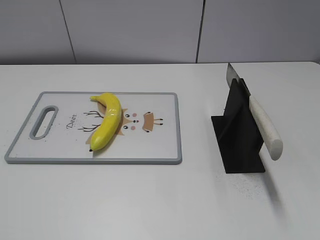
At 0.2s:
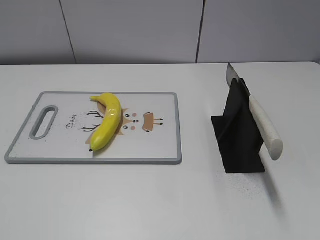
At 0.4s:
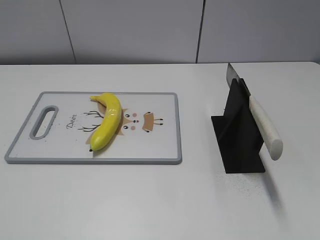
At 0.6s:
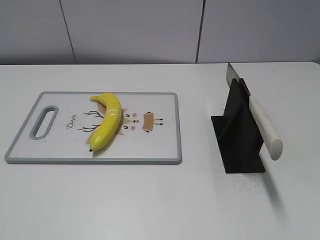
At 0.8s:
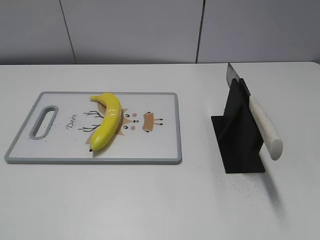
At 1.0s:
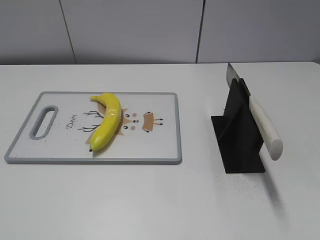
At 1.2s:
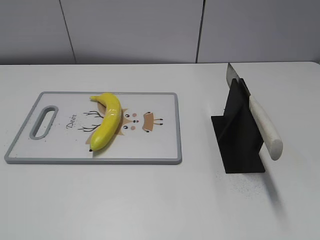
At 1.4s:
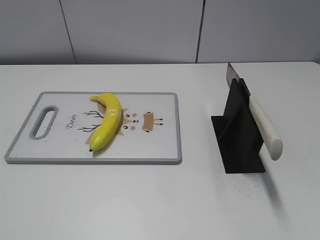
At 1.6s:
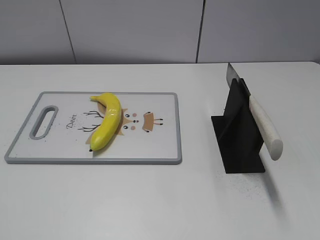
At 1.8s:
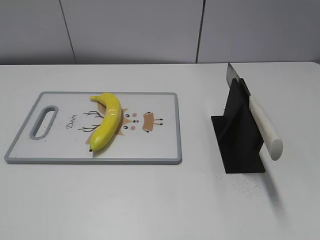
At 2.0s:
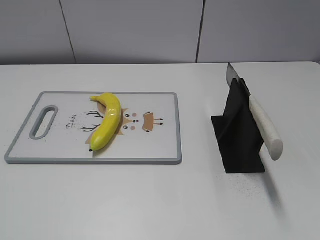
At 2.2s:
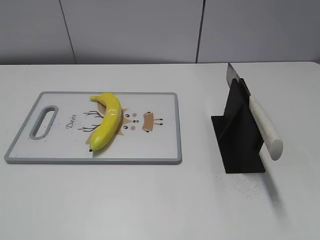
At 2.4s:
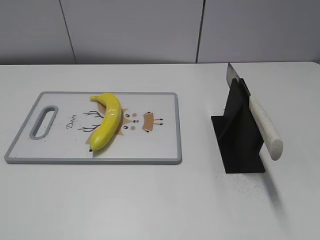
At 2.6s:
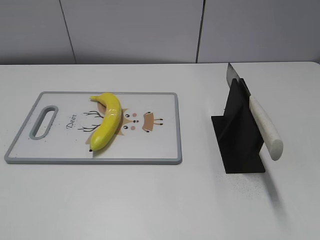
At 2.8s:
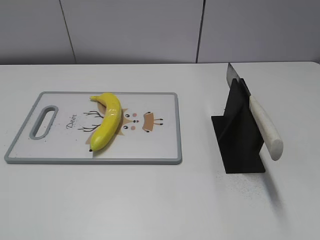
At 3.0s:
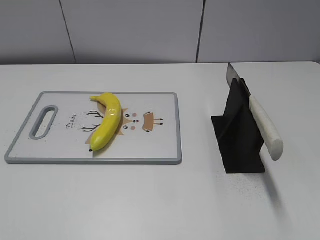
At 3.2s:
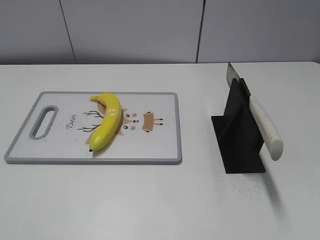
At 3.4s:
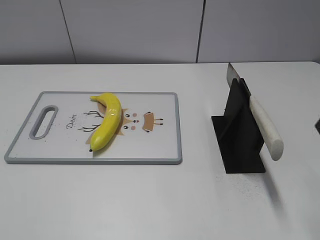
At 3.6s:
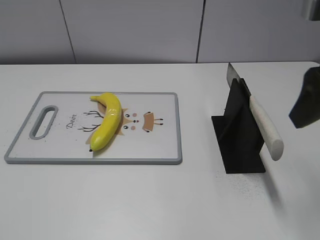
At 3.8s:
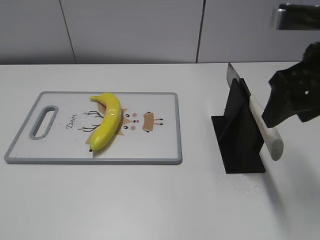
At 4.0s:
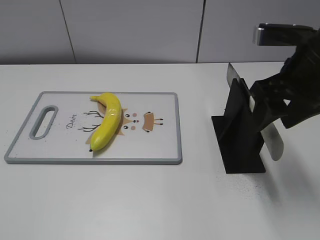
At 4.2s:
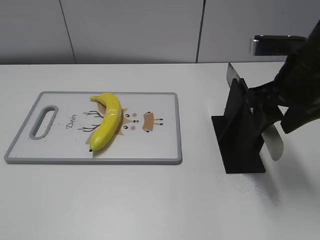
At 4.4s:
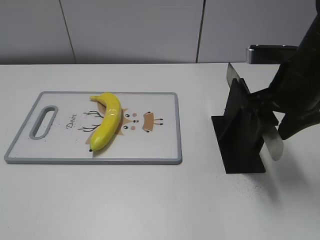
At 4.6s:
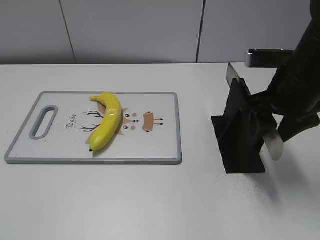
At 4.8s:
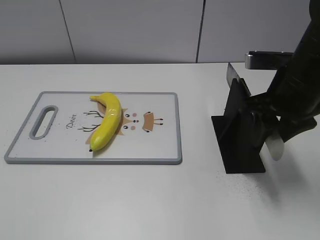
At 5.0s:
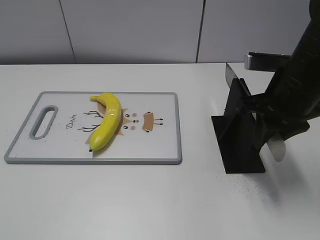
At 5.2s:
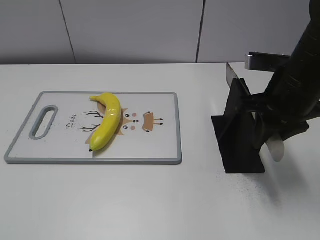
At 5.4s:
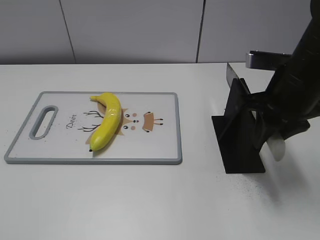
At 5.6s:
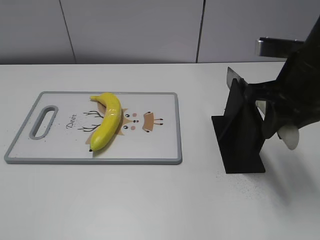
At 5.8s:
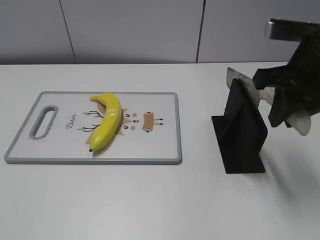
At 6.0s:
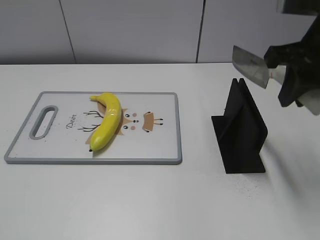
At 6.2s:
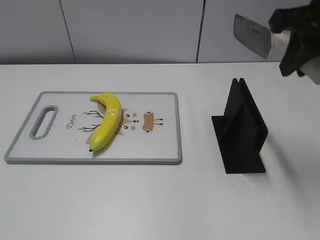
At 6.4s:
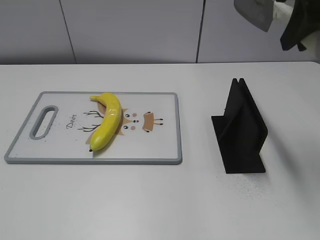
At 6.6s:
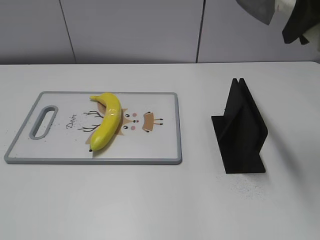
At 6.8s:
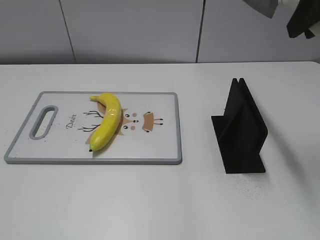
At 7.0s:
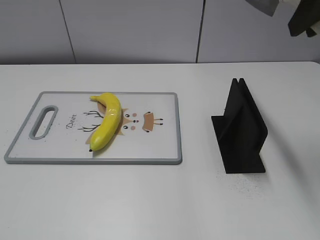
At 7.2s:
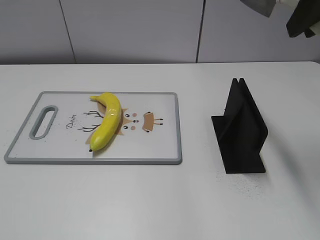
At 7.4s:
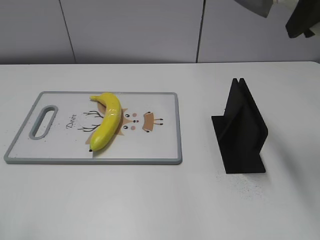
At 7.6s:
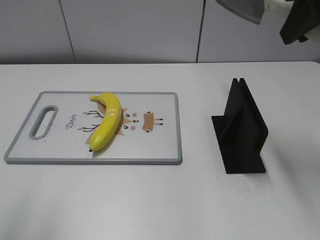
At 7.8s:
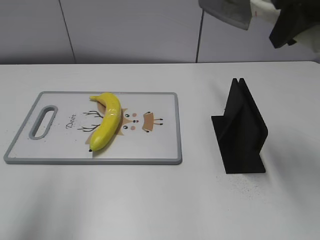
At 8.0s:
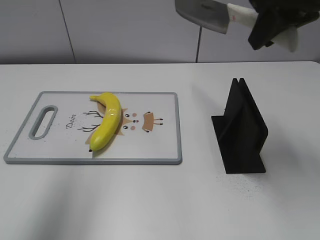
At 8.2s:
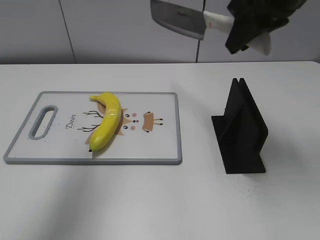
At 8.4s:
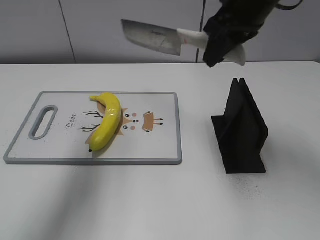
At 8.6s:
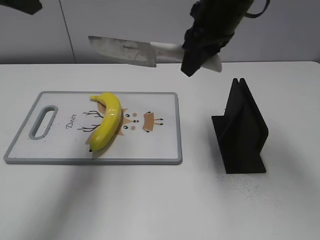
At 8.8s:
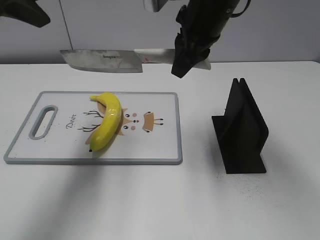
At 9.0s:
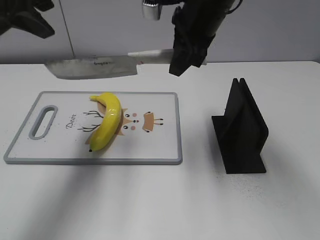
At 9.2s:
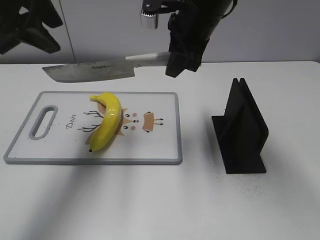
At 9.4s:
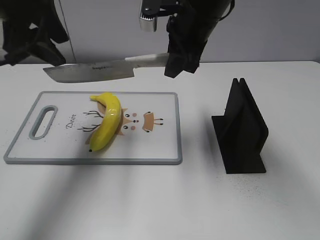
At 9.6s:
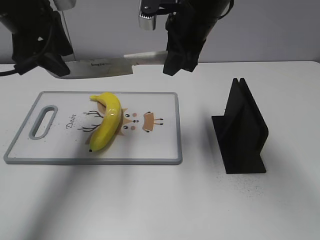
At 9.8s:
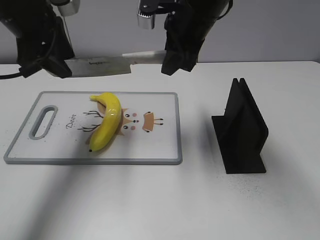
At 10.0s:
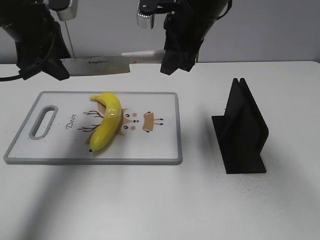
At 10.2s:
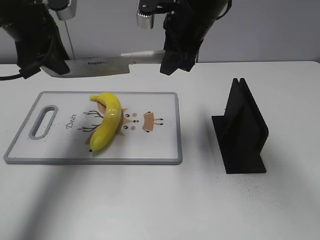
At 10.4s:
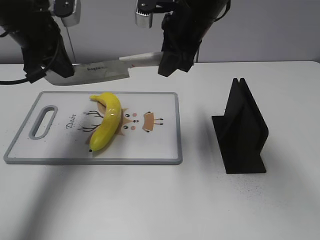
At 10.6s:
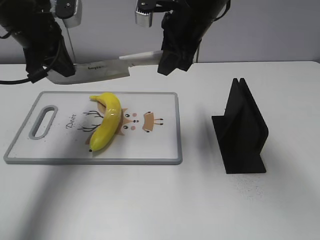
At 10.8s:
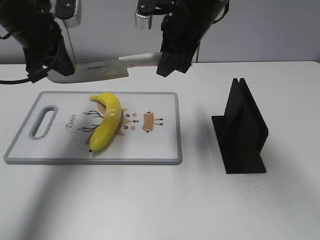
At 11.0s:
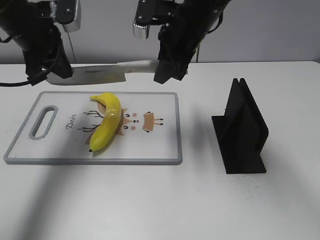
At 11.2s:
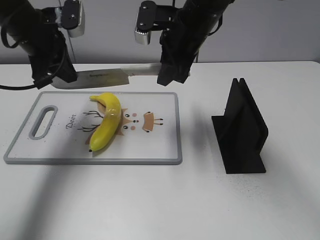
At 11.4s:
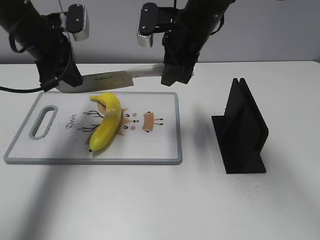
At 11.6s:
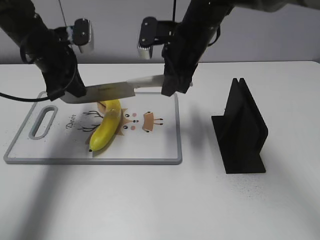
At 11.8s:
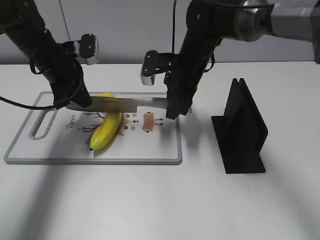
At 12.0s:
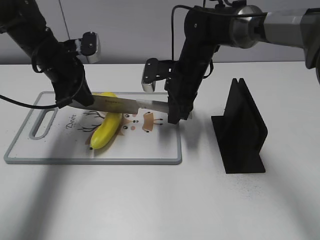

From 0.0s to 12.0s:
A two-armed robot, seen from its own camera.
Task of the whole recording: cut plastic banana.
Step, from 0.0s to 6.0s: Grab the knife handle with your right hand.
From 3.0s to 4.4s: The right gripper moves forward, downward and to the left, some 20 cm.
From 4.4s to 6.0s: The right gripper shifts approximately 5 cm upward, and closes.
From 6.0s to 7.6s: The right gripper shifts approximately 10 cm upward.
From 7.6s to 9.0s: The right gripper is displaced to the left, forward and downward by about 20 cm. The left gripper shifts roughly 20 cm forward.
From 9.0s to 10.4s: The left gripper is displaced downward and forward by about 10 cm, and closes its fingers.
From 10.4s to 12.0s: Both grippers move downward, approximately 10 cm.

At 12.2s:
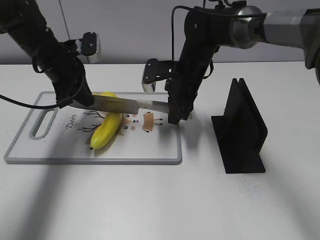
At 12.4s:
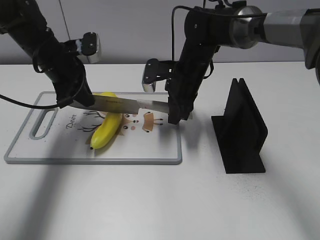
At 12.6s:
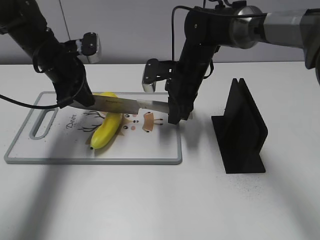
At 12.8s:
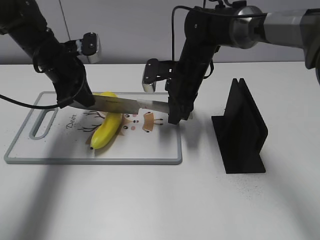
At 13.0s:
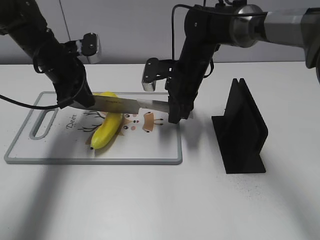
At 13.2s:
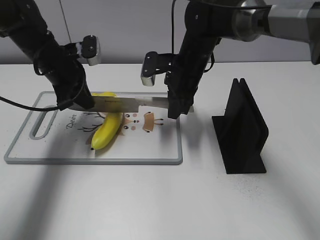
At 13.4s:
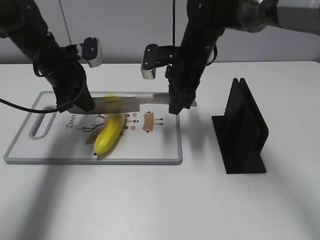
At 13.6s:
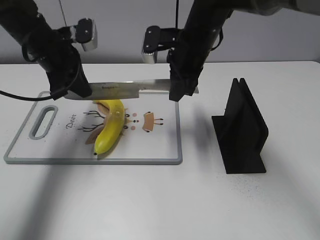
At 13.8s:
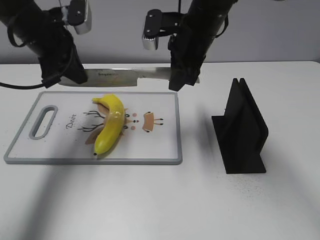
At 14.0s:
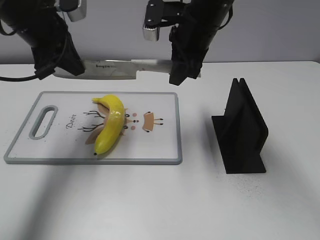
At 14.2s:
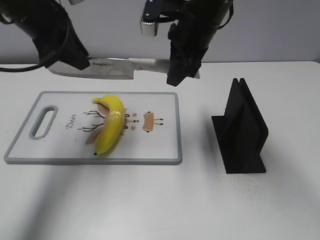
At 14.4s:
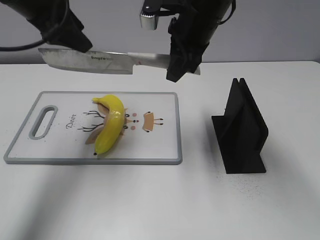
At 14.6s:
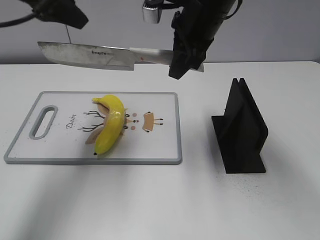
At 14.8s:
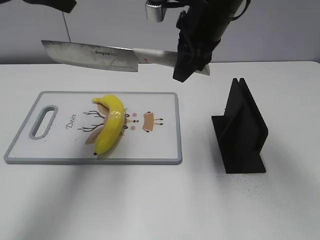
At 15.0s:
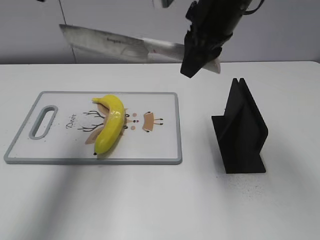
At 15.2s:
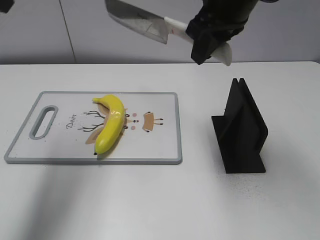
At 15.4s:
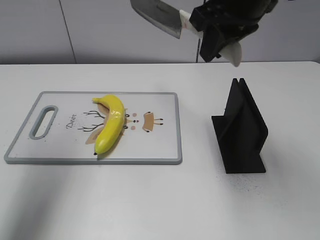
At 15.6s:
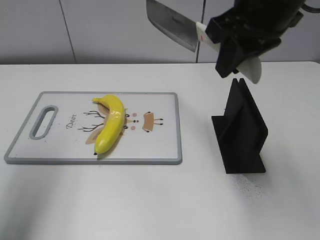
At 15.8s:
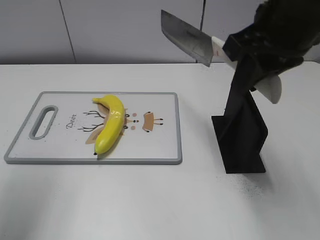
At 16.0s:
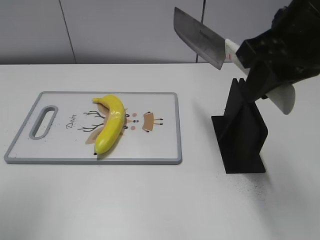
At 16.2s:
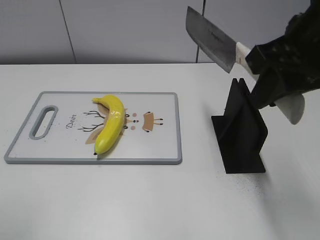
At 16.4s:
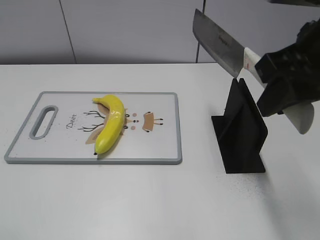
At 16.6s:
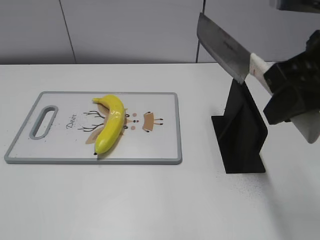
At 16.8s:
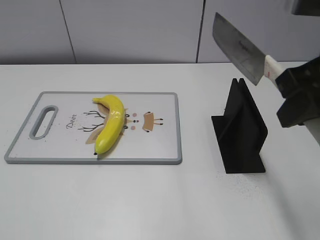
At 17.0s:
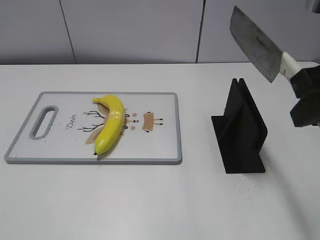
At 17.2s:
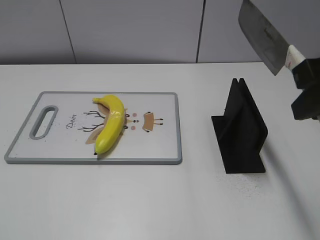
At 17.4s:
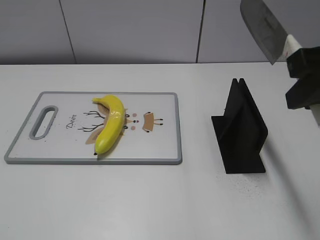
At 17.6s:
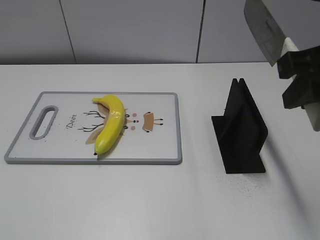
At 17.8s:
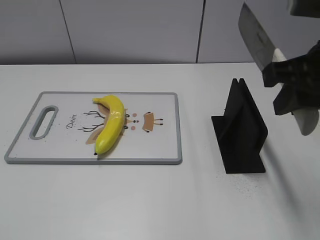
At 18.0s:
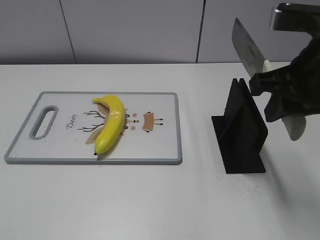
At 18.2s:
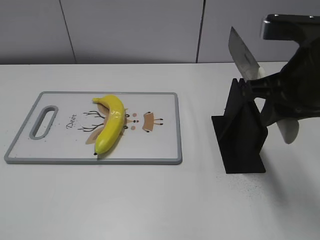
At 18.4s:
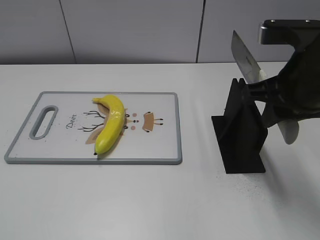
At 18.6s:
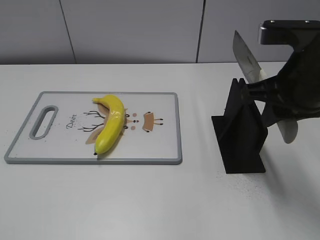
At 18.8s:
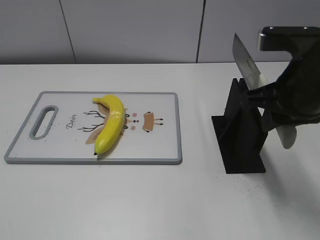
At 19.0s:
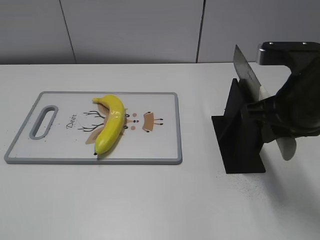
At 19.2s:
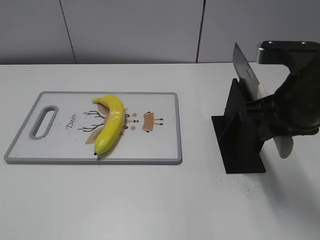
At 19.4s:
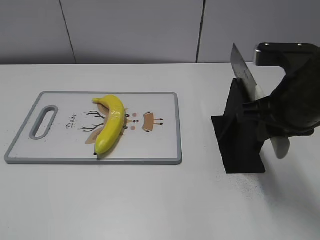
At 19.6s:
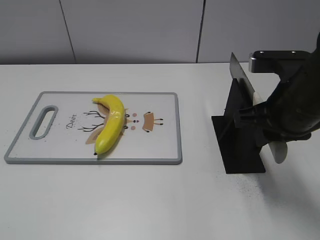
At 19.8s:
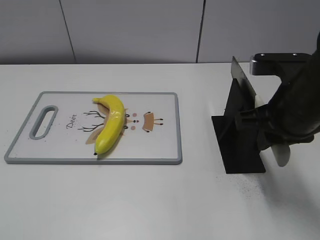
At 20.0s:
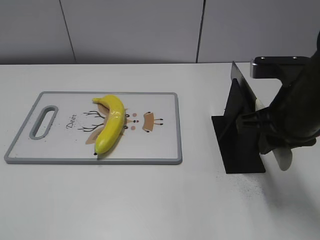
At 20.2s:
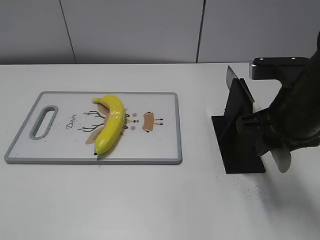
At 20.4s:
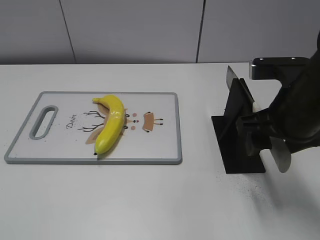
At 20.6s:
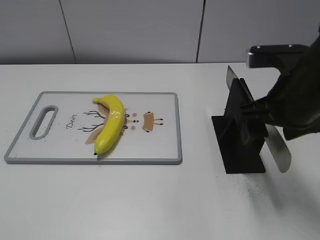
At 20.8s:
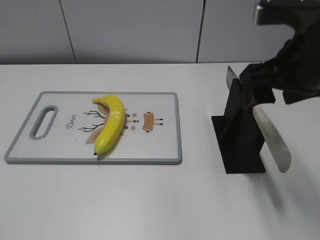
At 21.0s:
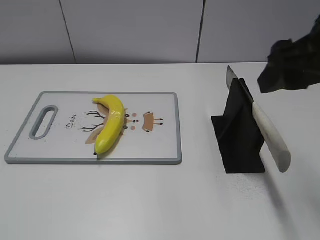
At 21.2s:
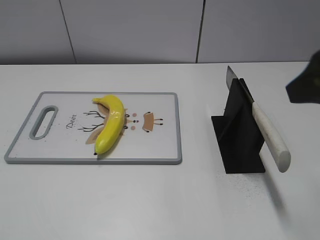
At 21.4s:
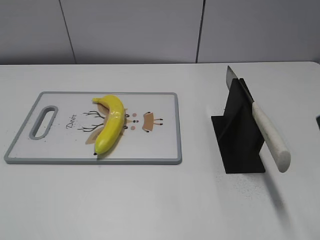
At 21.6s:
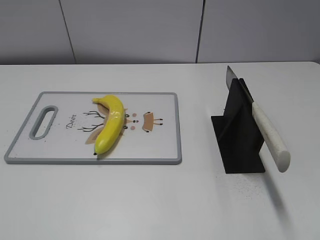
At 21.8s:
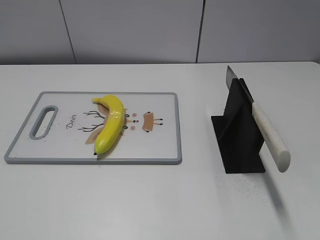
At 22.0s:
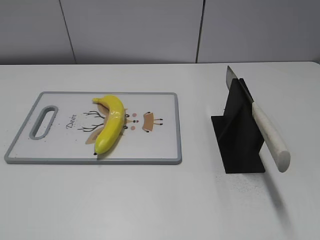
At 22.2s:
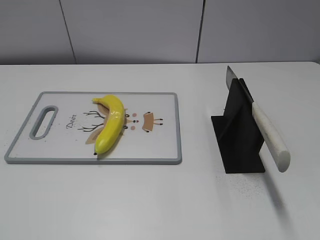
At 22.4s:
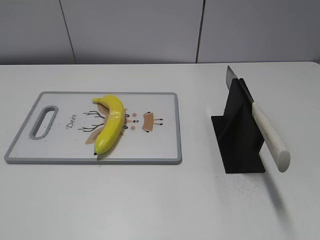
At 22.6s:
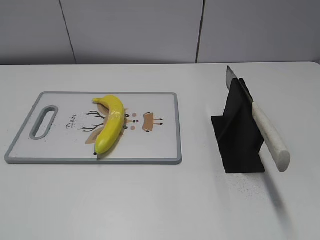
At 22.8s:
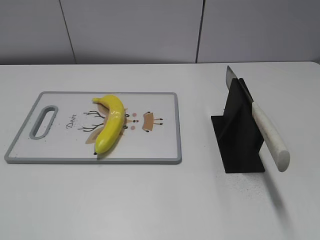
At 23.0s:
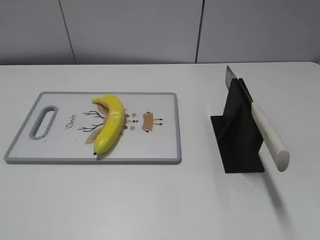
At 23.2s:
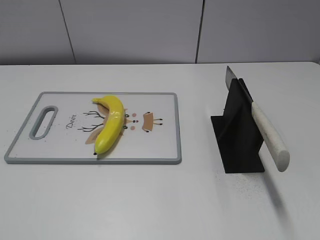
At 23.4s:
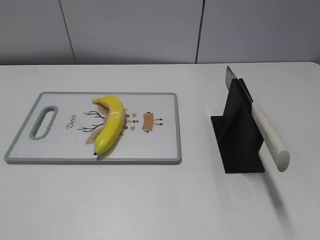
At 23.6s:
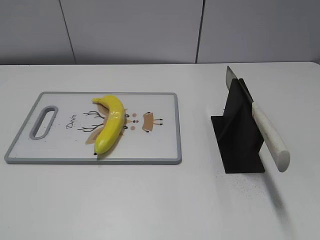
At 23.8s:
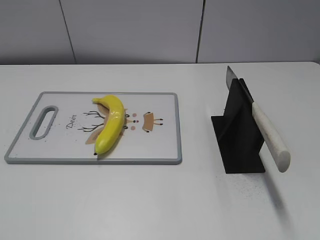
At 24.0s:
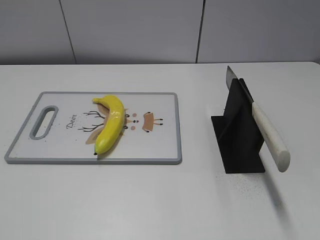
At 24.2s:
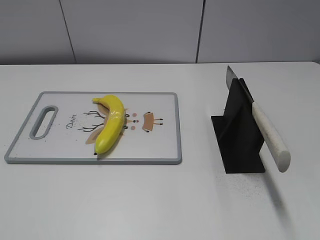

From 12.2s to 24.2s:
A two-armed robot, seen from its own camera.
Task of the whole recording: cut plastic banana.
Step, from 13.6s to 15.6s: Cut the banana with your right hand.
Step, from 15.8s to 17.2s: Lift the knife with your right hand.
Step, from 17.6s to 24.2s: Place the knife on the storage rack with your right hand.
From 12.2s to 13.8s: The grippers both shift upward by about 10 cm.
From 13.8s to 15.2s: The right gripper moves upward and backward, roughly 10 cm; the left gripper travels upward and backward by approximately 20 cm, and opens.
From 15.2s to 16.6s: The right gripper travels backward and to the right by some 15 cm; the left gripper shifts some 25 cm backward.
From 16.6s to 18.2s: The right gripper moves downward, approximately 5 cm.
From 18.2s to 19.8s: The right gripper heads downward, covering some 5 cm.
From 19.8s to 21.2s: The right gripper shifts roughly 15 cm upward and backward, and opens up.
From 21.2s to 22.6s: The right gripper goes approximately 20 cm backward, to the right and downward.
